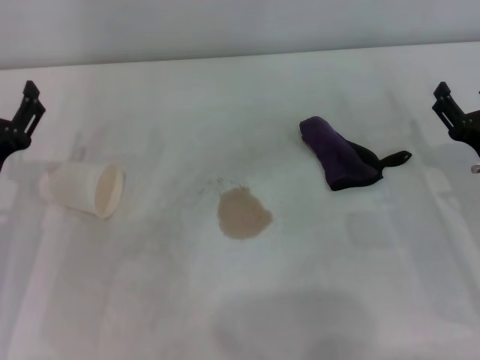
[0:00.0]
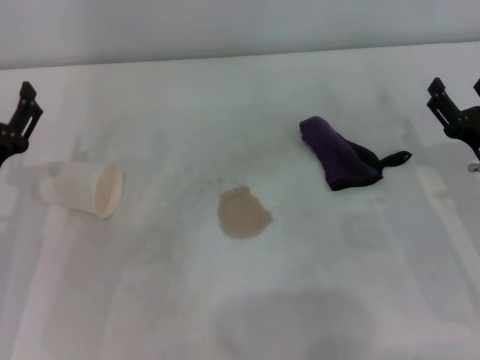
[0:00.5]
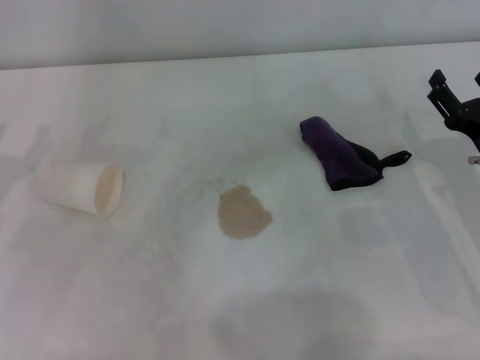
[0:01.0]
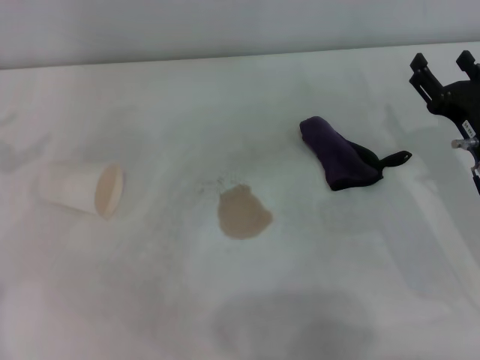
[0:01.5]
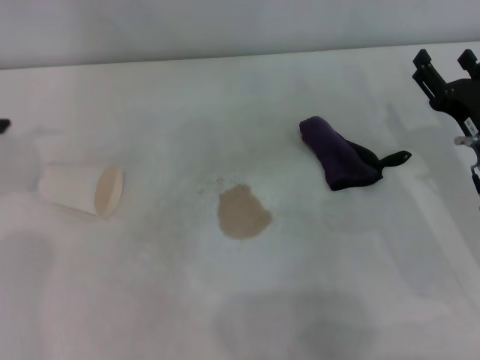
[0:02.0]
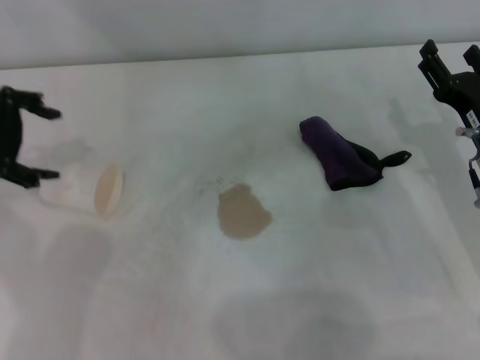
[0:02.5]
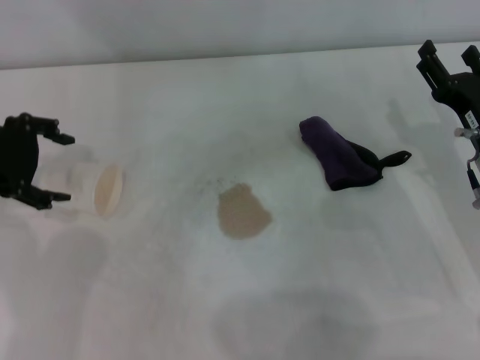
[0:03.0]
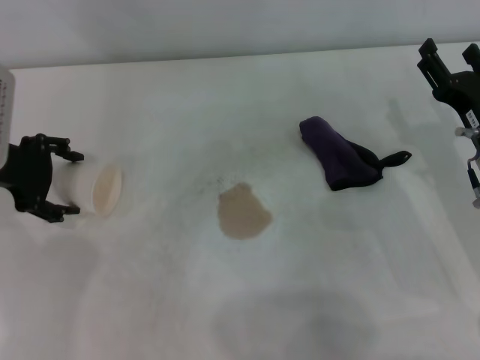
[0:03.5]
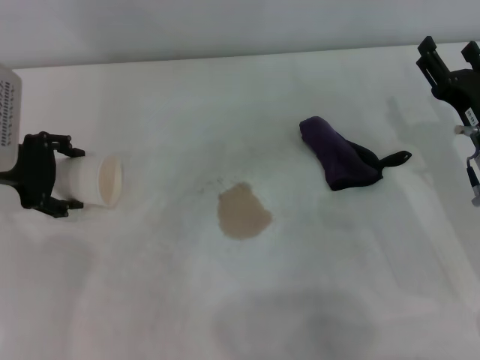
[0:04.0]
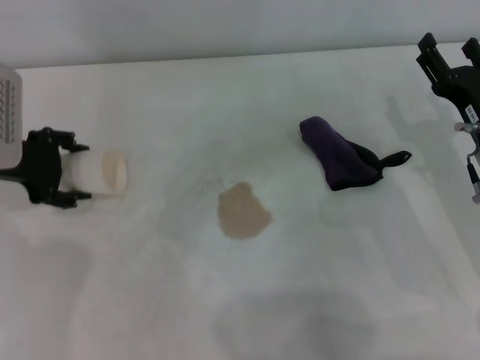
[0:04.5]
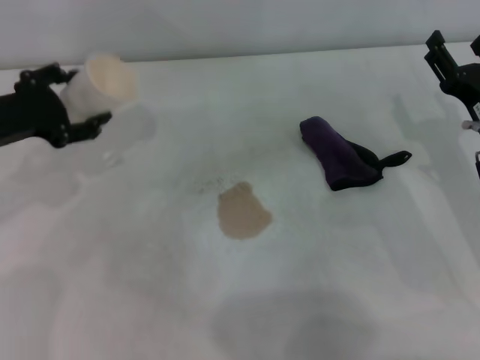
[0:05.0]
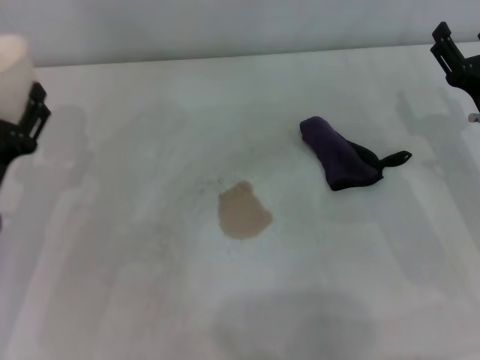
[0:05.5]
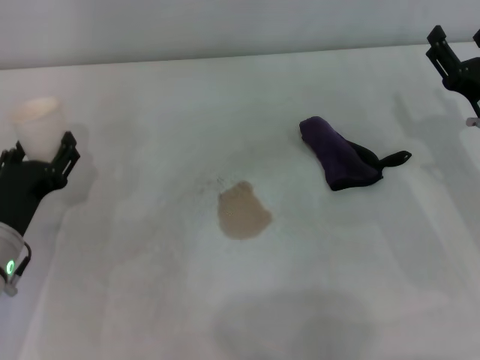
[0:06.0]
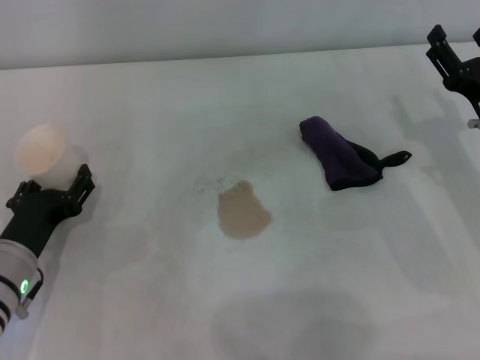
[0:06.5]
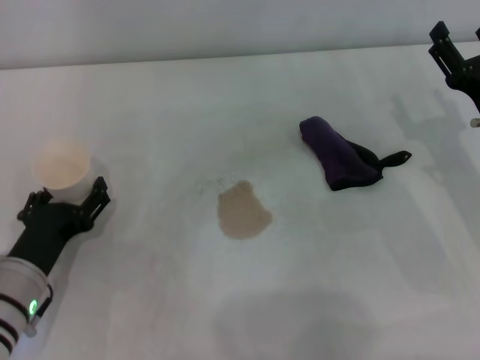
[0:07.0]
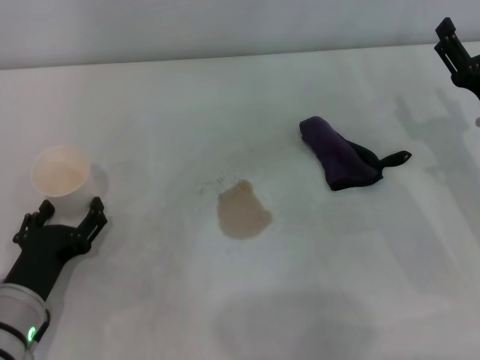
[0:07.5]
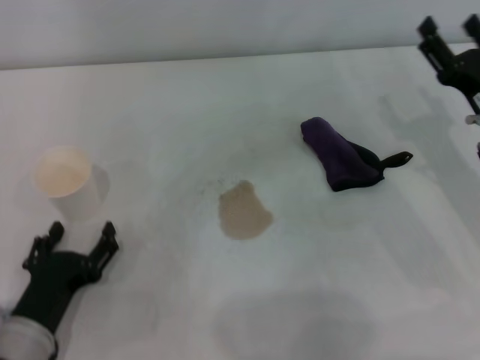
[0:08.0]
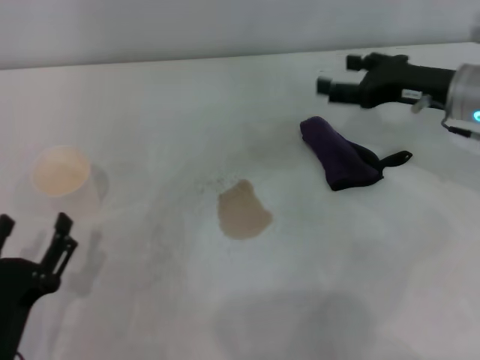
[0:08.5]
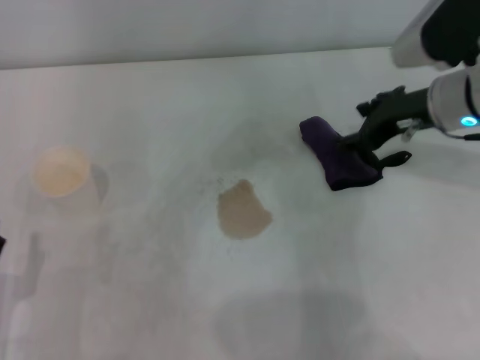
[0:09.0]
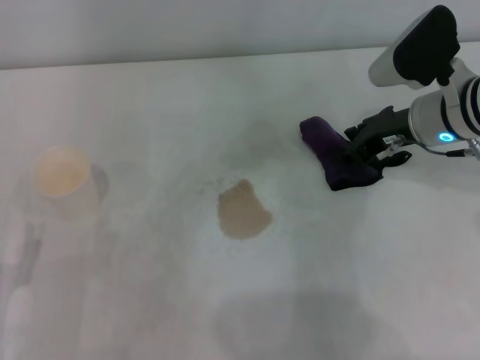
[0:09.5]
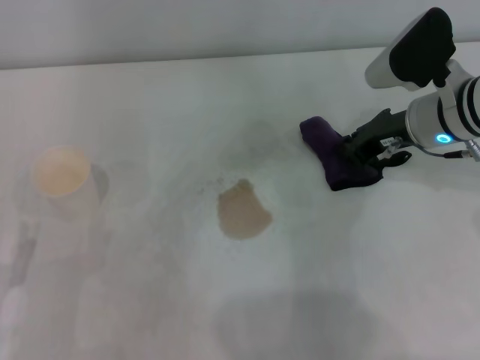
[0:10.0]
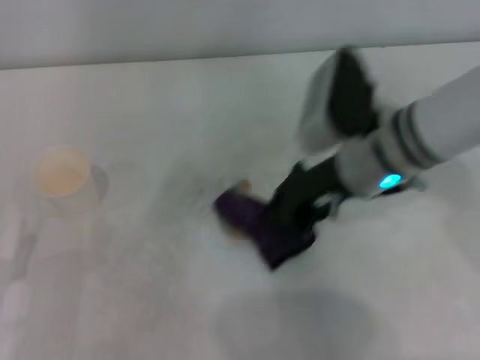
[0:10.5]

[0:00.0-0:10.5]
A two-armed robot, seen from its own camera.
Step, 0:00.0 to 0:04.0: Grasp the paper cup with the left gripper.
Step, 0:04.5 to 0:07.5: Stand the paper cup upright with the left gripper.
Step, 0:08.0 to 0:09.5: Grasp the rag with the right gripper.
0:00.0 to 0:02.0: The left gripper travels upward, to the left and forward by about 20 cm.
0:02.0 to 0:04.0: The left gripper shifts approximately 15 cm downward and to the right.
0:04.0 to 0:06.5: The left gripper goes some 20 cm downward and backward.
0:06.5 to 0:08.5: The left gripper is displaced backward by about 15 cm, while the right gripper moves forward and upward, about 10 cm.
0:08.5 to 0:10.5: The left gripper shifts by some 5 cm. Meanwhile the right gripper moves to the left, approximately 10 cm, and closes its fingers.

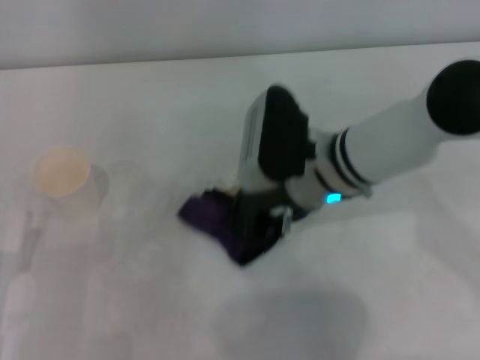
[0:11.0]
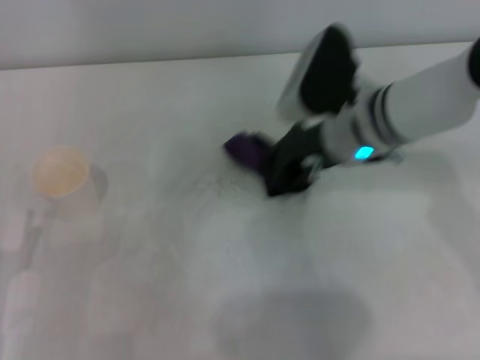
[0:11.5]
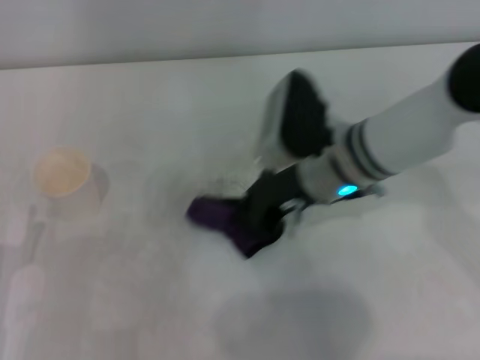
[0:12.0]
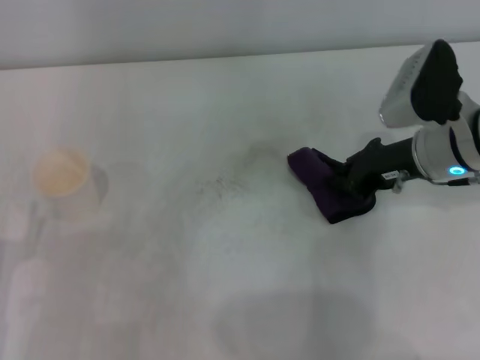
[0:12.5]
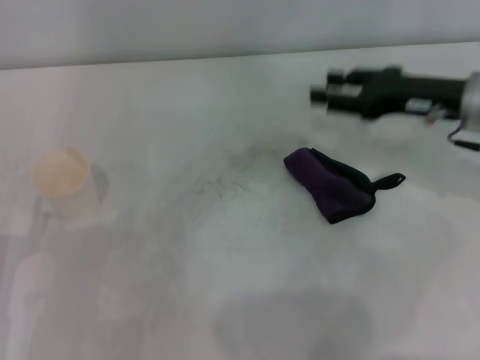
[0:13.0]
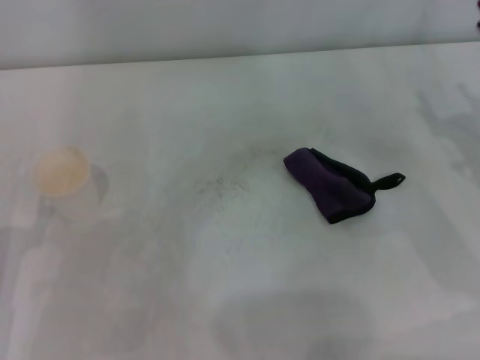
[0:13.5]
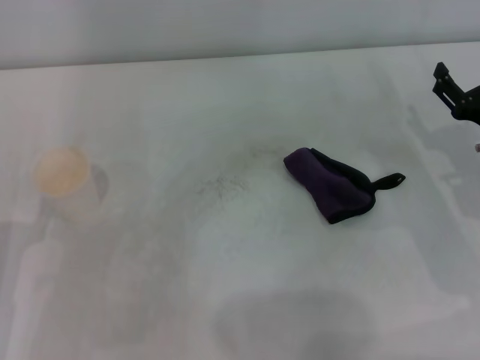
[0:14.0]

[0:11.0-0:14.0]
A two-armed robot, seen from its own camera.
Step, 0:12.0 to 0:12.5: Place the rag on the table with the right gripper.
0:11.0 to 0:12.5: The right gripper shifts about 15 cm to the right.
0:12.5 to 0:14.0: The right gripper shifts approximately 10 cm to the right, downward and backward, and opens up.

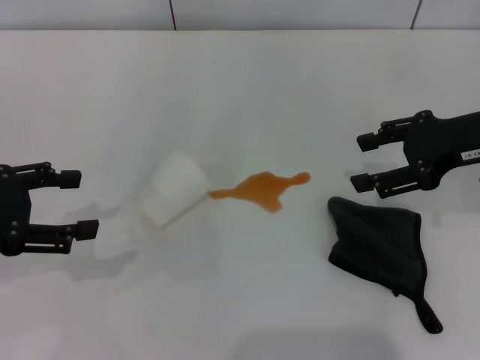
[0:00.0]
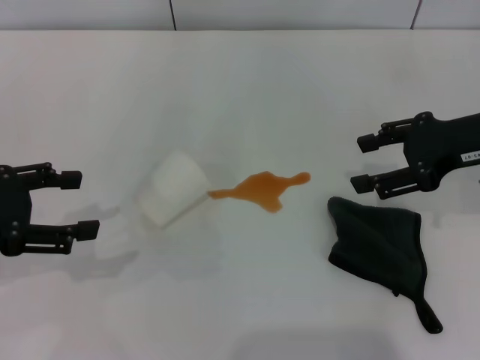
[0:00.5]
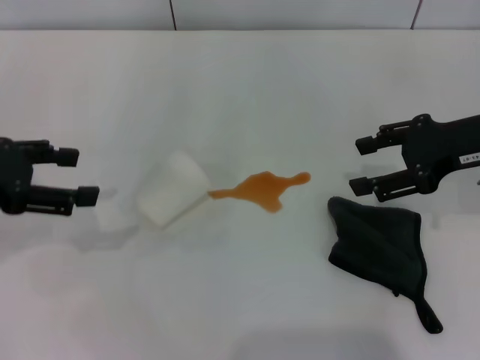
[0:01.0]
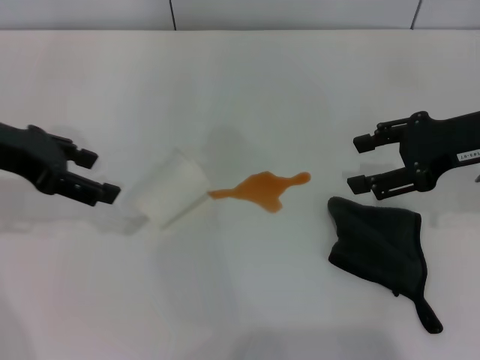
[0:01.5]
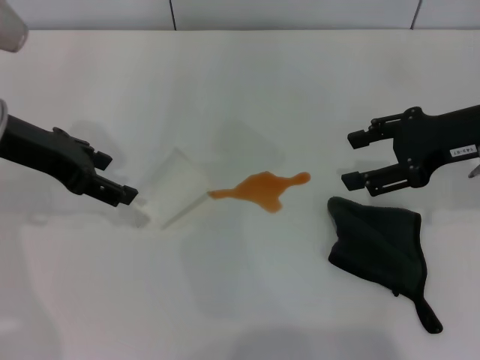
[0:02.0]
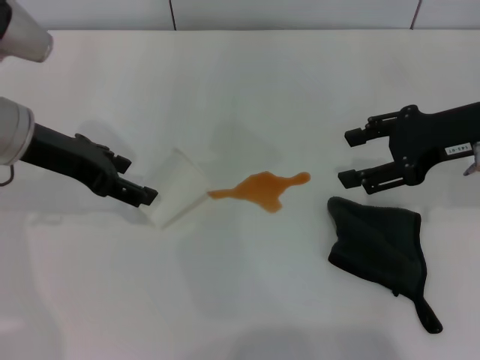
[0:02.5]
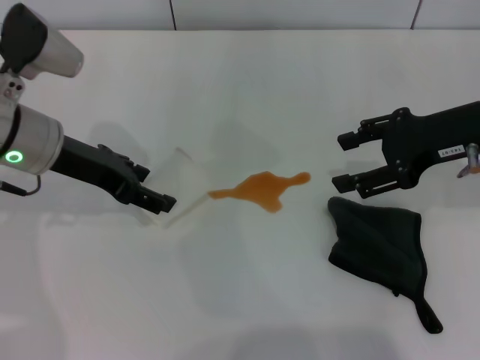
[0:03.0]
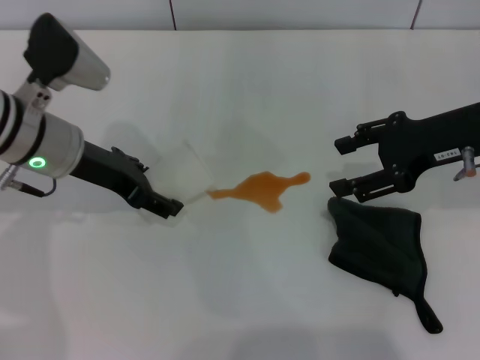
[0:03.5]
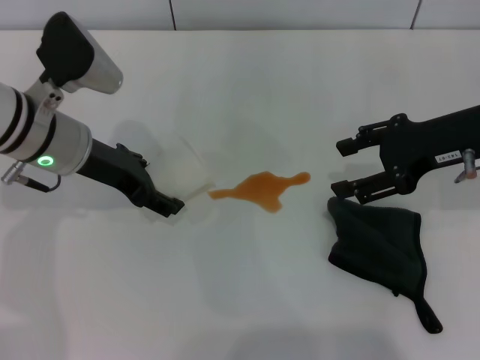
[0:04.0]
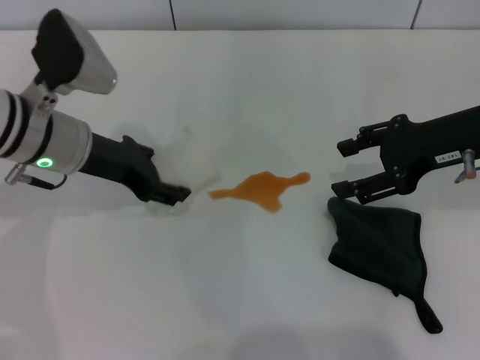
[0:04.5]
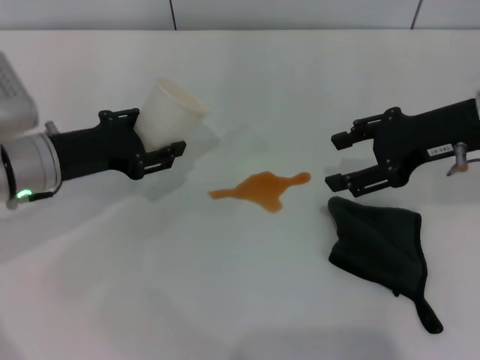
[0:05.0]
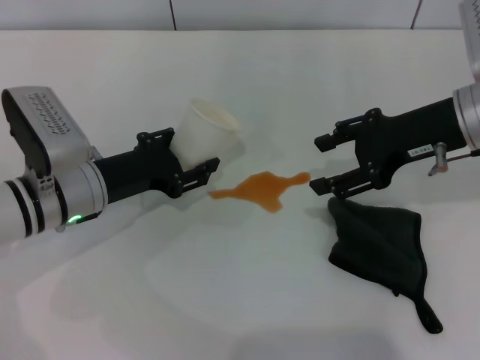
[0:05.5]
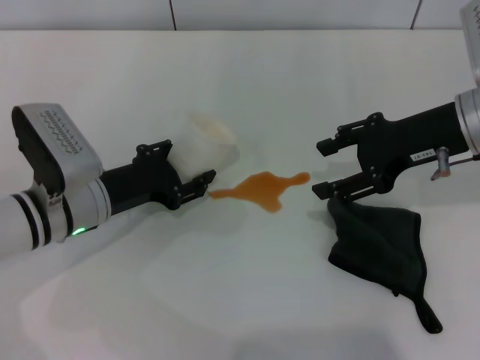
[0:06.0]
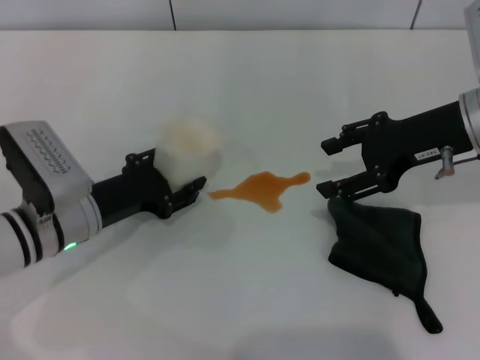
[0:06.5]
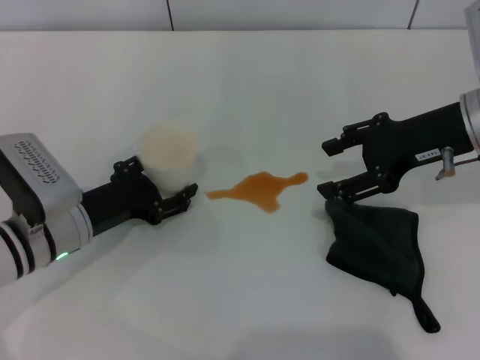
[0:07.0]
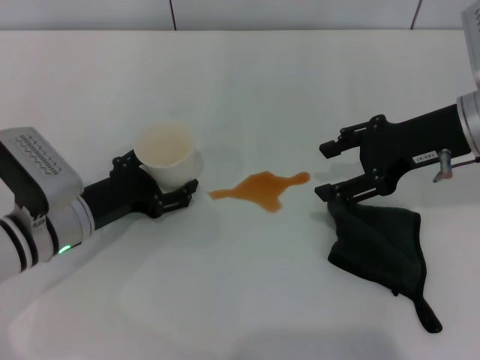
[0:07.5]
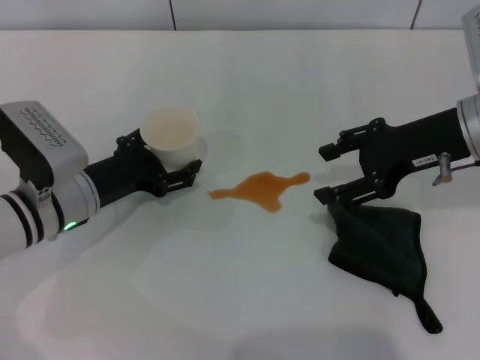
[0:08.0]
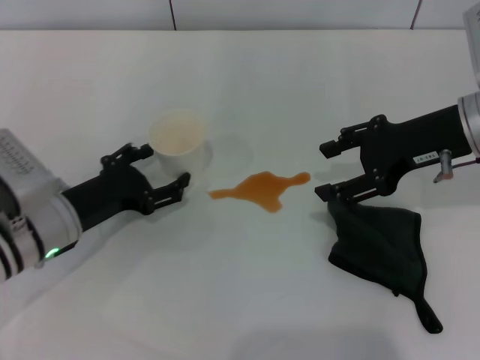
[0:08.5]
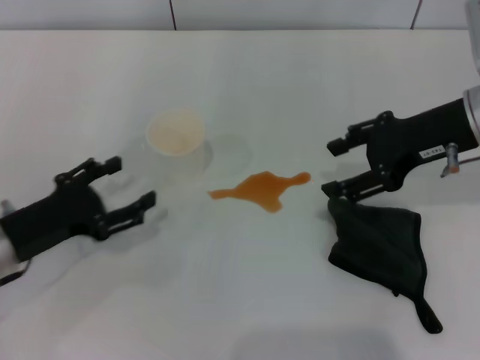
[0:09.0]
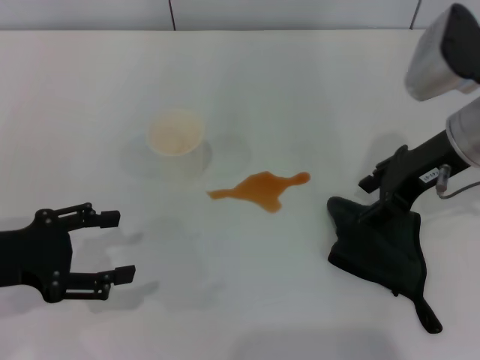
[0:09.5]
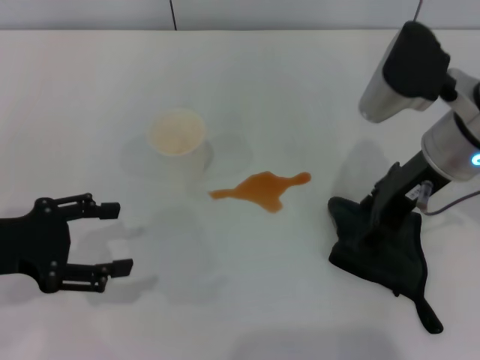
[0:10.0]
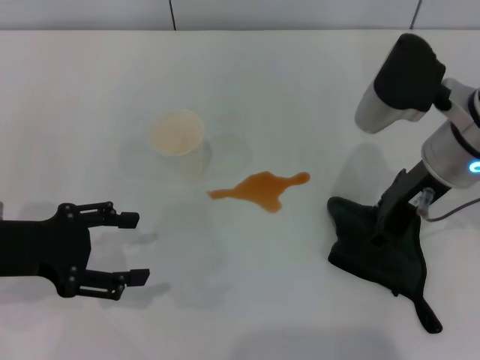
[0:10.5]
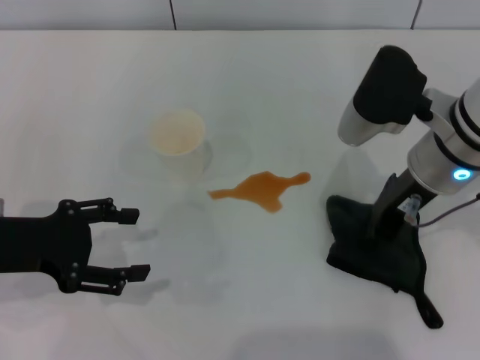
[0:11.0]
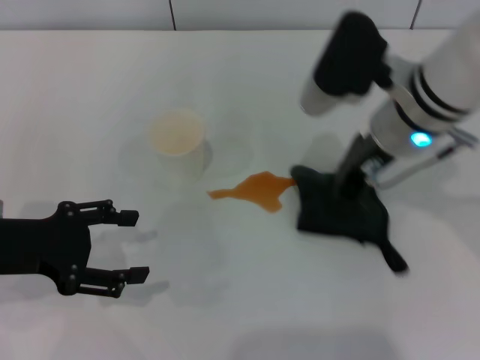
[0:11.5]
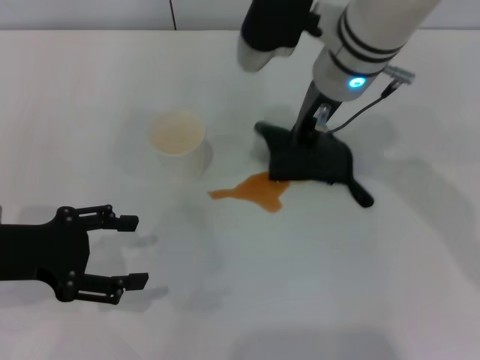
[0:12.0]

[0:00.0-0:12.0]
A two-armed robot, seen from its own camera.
Step, 0:00.0 to 0:03.5: Grasp the paper cup with the left gripper.
Step, 0:04.0 to 0:08.5: Stand the paper cup upright with the left gripper.
Step, 0:09.0 to 0:11.0: Grasp the rag with the right gripper.
0:00.0 to 0:02.0: The left gripper is displaced forward and to the right by roughly 10 cm.
0:02.0 to 0:04.0: The left gripper travels downward and to the right by approximately 10 cm.
0:04.0 to 0:06.0: The left gripper shifts some 10 cm downward and backward, and closes its fingers.
0:06.0 to 0:08.0: The left gripper opens its fingers.
0:08.0 to 0:10.0: The left gripper heads to the left, upward and backward, covering roughly 15 cm, while the right gripper travels to the left by about 5 cm.
0:10.0 to 0:12.0: The right gripper travels to the left and forward by some 10 cm, and closes up.
